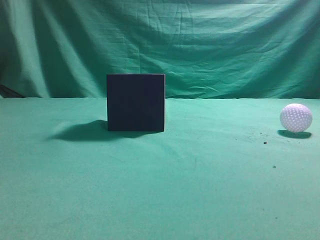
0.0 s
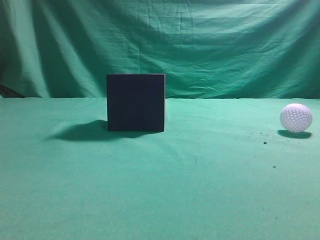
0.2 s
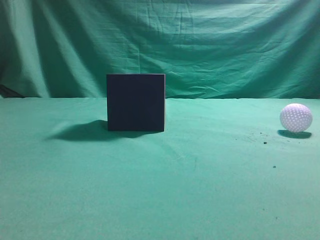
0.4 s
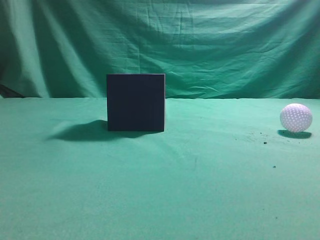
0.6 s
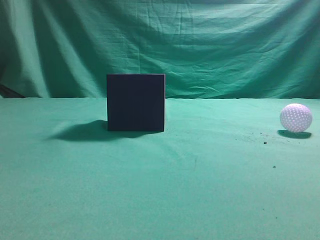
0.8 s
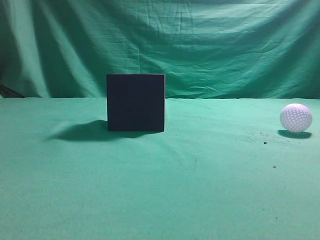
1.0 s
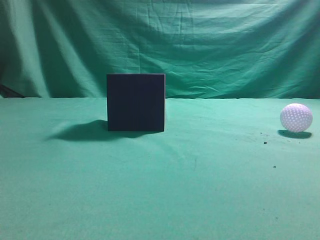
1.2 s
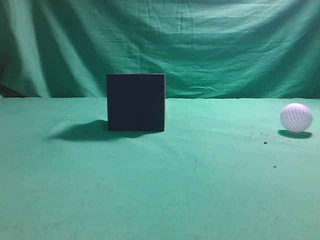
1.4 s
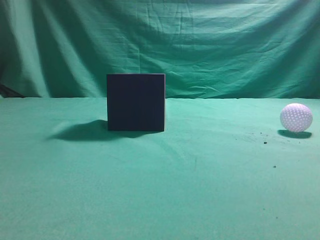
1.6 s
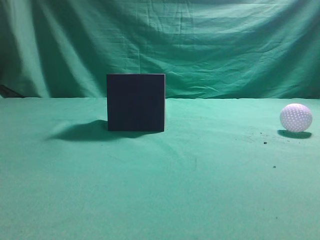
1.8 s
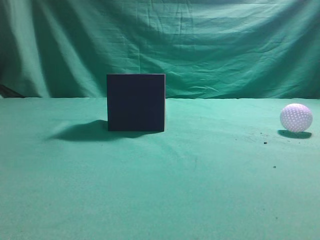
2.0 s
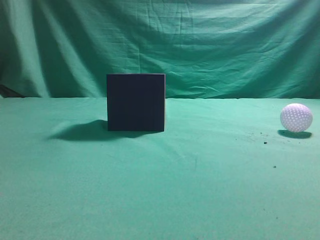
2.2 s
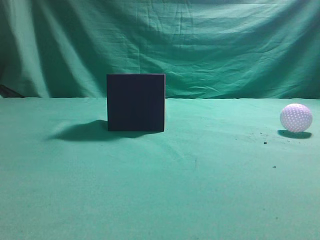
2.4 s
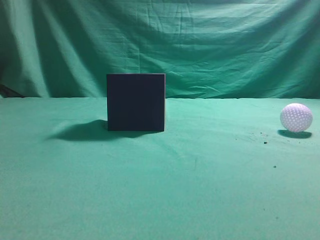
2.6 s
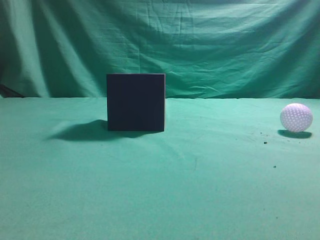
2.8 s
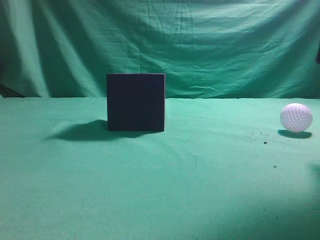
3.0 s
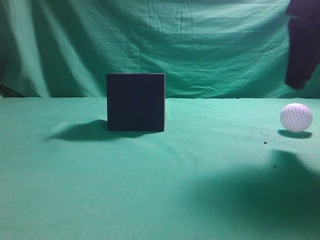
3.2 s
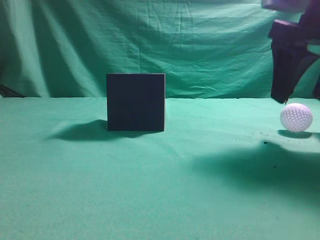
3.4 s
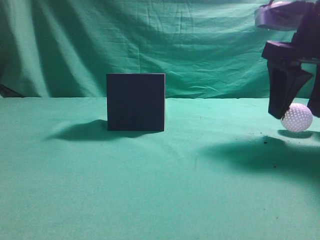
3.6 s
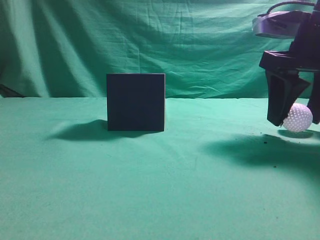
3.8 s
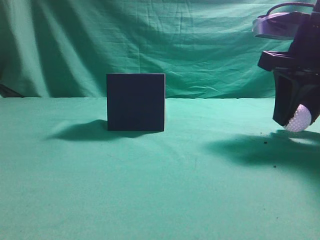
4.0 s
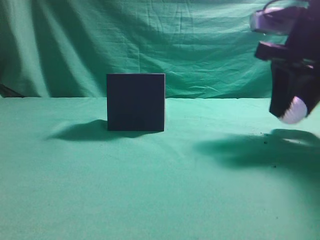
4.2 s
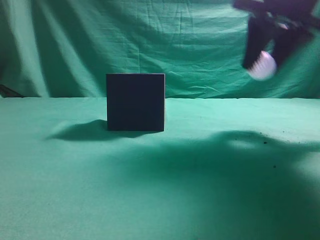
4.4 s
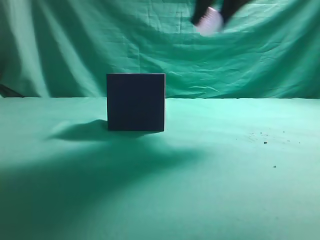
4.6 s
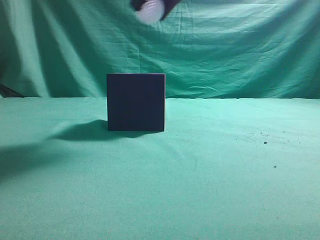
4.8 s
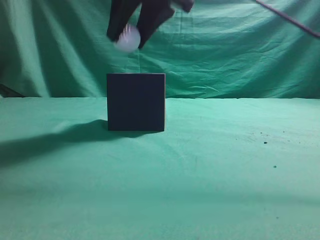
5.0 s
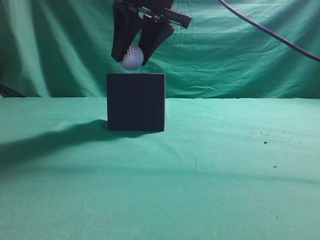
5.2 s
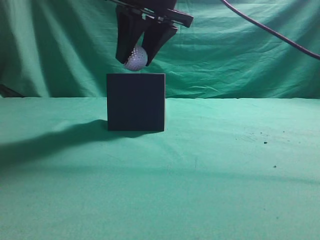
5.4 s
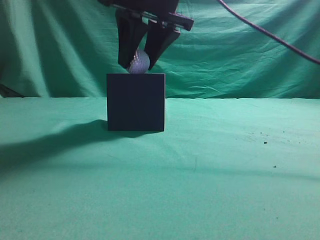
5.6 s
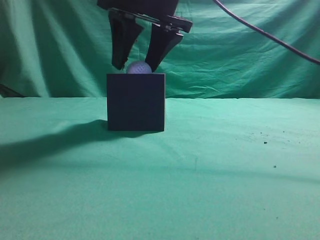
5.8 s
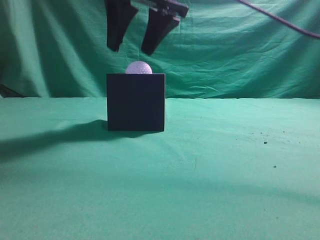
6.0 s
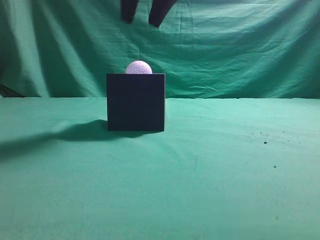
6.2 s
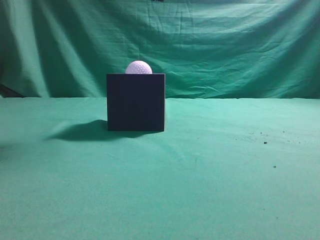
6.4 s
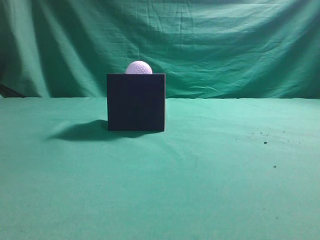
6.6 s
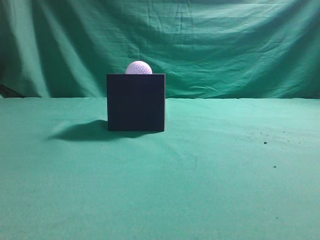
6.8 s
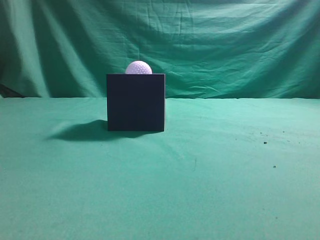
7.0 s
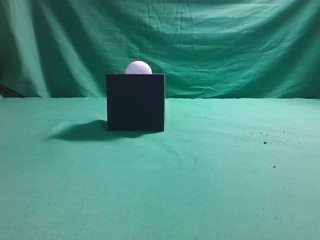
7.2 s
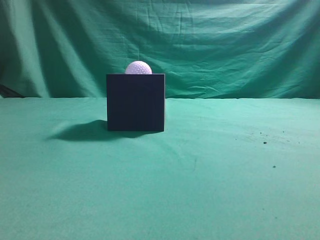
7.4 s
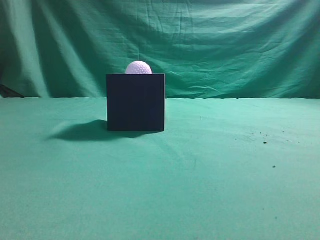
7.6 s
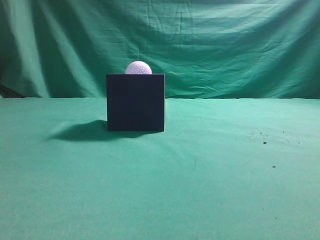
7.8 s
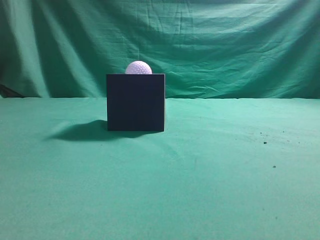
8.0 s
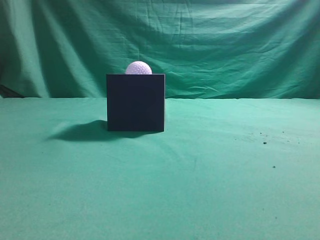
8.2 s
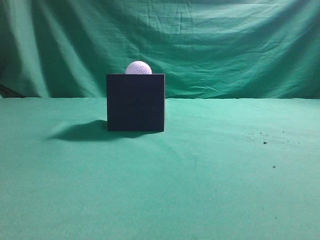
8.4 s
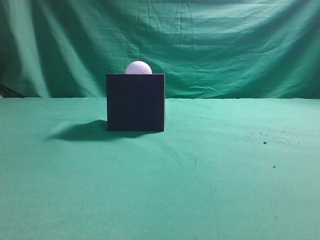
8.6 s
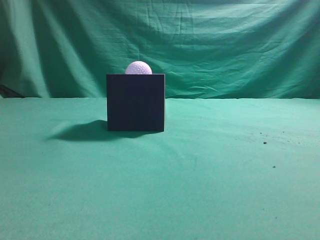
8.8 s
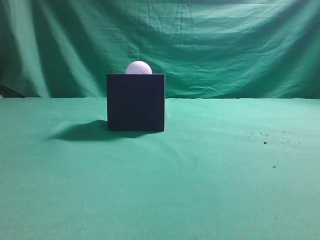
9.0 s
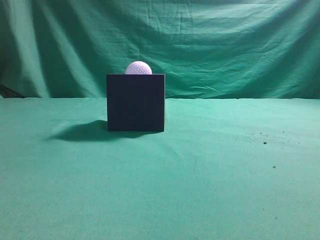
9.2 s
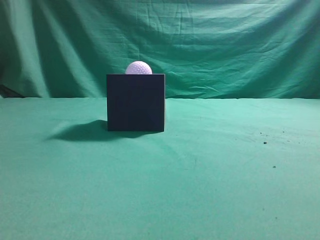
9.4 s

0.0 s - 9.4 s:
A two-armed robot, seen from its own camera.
Task of the whole recording: Pick up the ball and place it in the circular groove above the cube.
Step, 0.0 s - 4.4 s: Grasp the sphere on the table.
Step, 4.6 s - 6.0 s: Place the sphere into the sphere-shaped recess.
1.6 s - 3.2 s: The right gripper moves forward, some 20 cm, and opens its fingers.
3.2 s - 4.8 s: The right gripper travels to the left and upward by approximately 20 cm, and closes up.
6.2 s - 7.8 s: The right gripper moves backward and to the right, some 35 cm, and closes its fingers.
